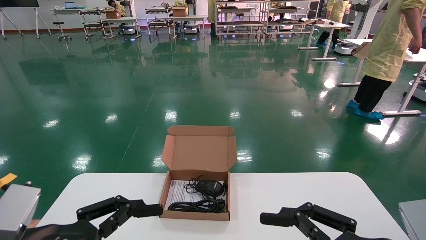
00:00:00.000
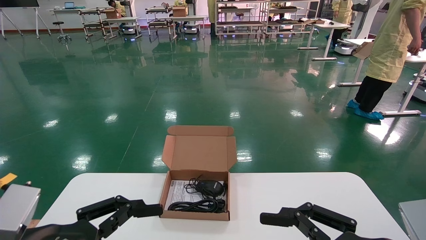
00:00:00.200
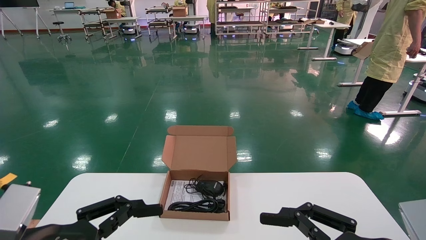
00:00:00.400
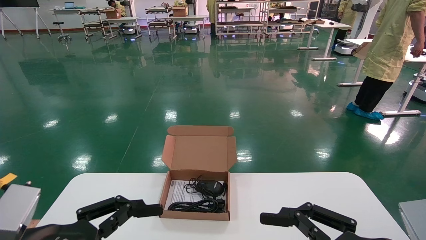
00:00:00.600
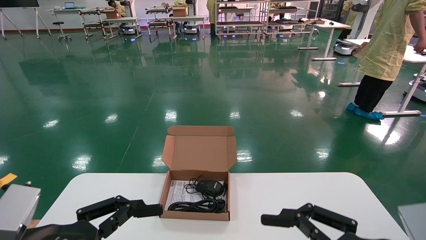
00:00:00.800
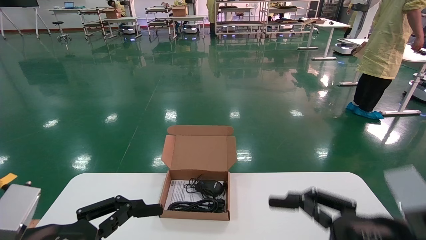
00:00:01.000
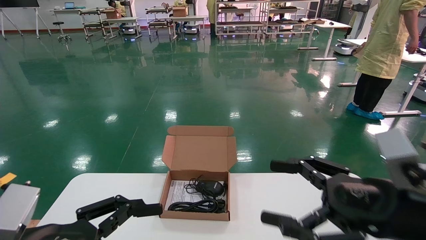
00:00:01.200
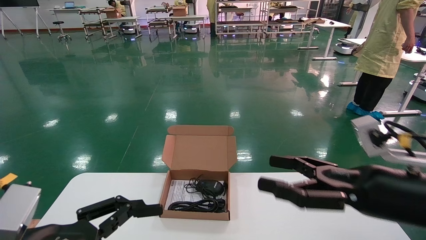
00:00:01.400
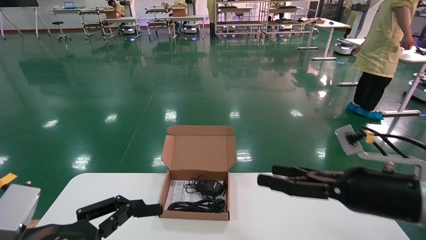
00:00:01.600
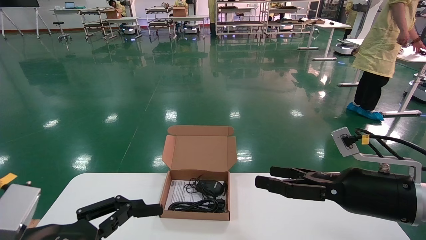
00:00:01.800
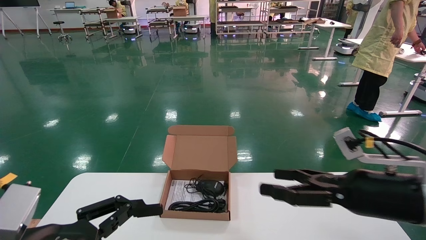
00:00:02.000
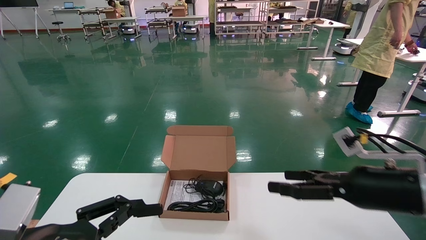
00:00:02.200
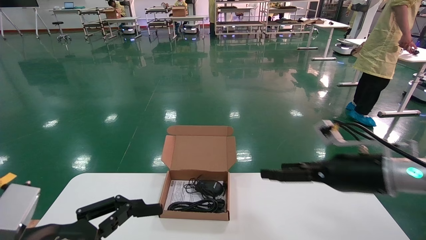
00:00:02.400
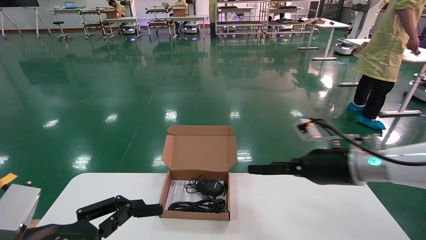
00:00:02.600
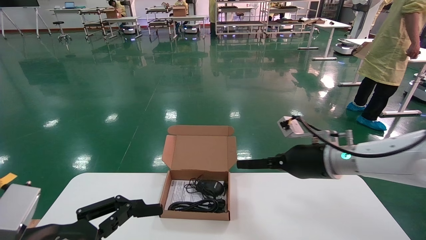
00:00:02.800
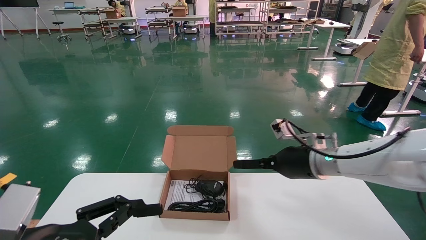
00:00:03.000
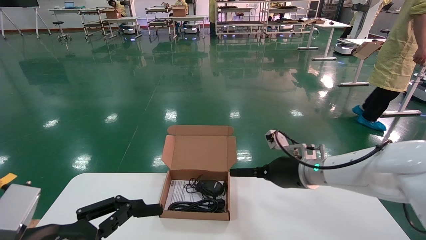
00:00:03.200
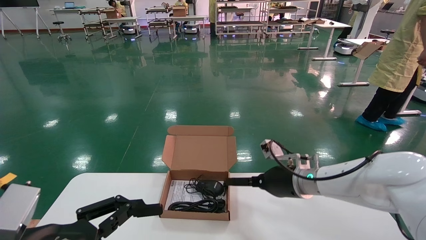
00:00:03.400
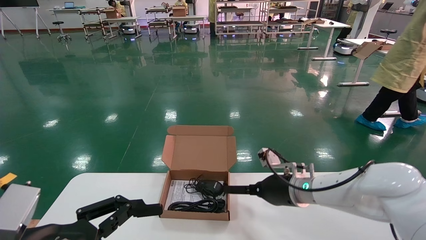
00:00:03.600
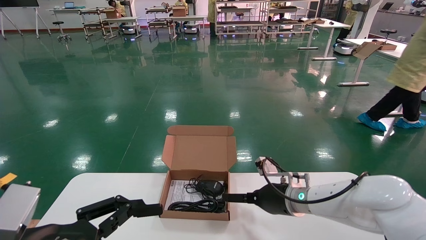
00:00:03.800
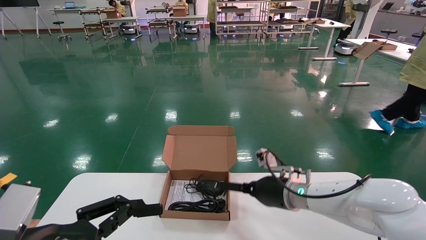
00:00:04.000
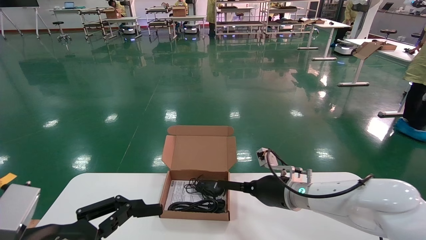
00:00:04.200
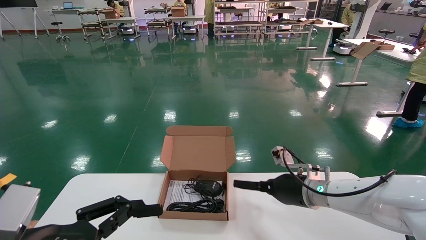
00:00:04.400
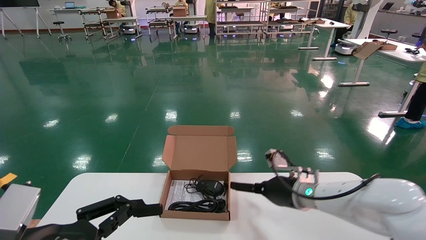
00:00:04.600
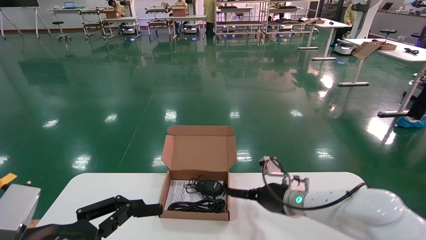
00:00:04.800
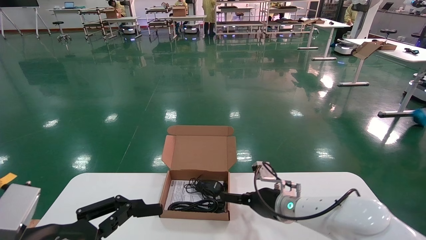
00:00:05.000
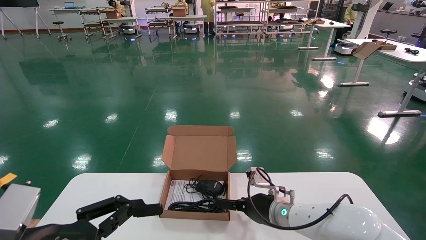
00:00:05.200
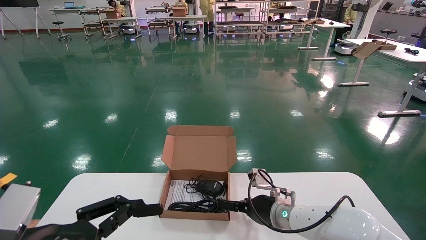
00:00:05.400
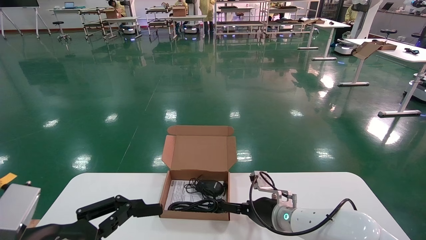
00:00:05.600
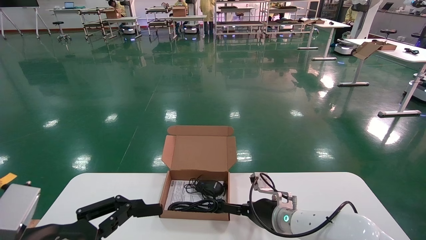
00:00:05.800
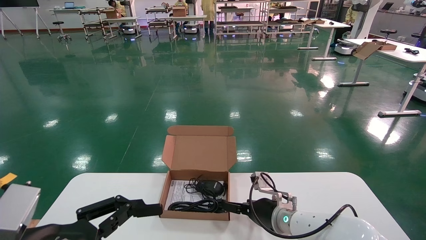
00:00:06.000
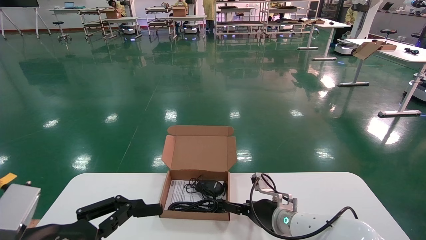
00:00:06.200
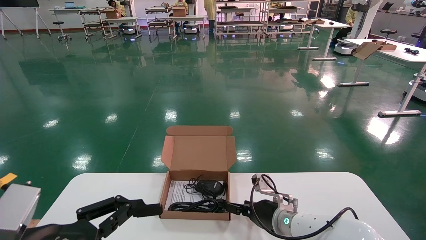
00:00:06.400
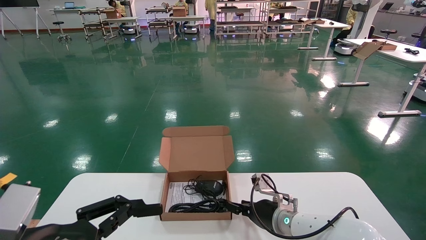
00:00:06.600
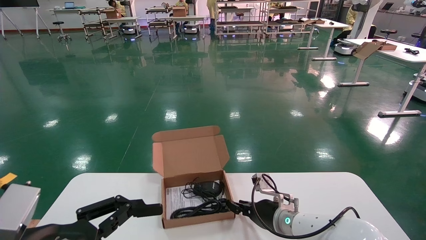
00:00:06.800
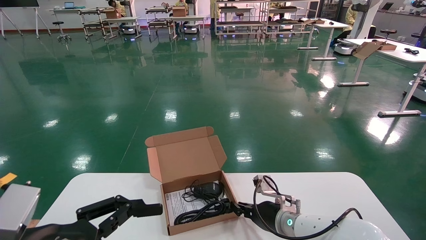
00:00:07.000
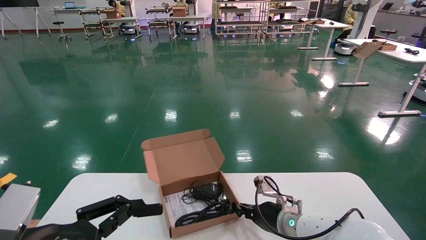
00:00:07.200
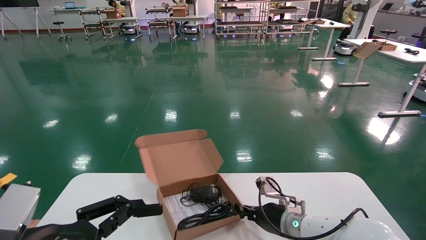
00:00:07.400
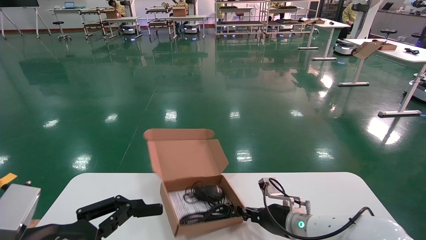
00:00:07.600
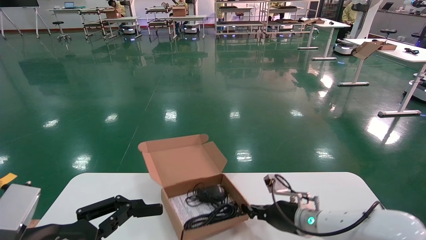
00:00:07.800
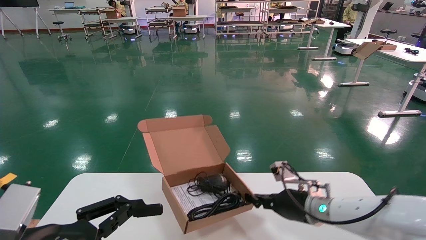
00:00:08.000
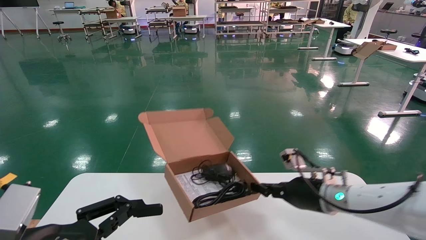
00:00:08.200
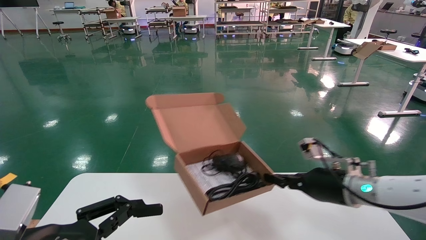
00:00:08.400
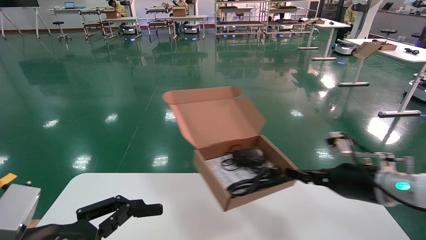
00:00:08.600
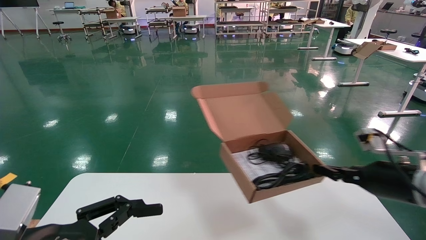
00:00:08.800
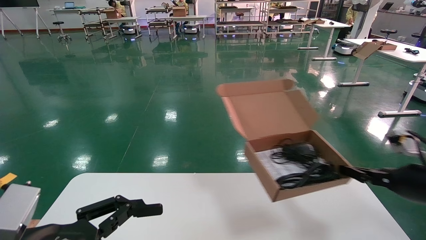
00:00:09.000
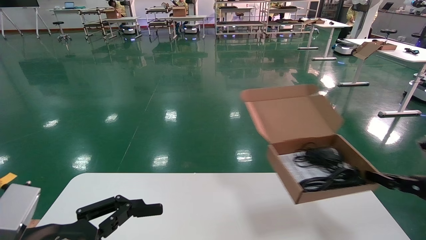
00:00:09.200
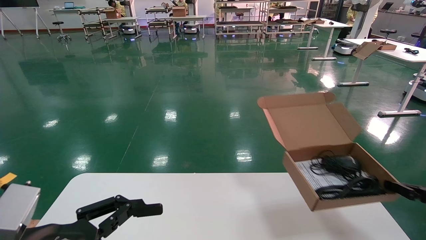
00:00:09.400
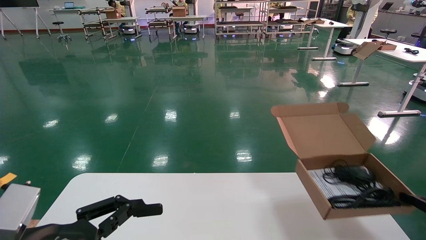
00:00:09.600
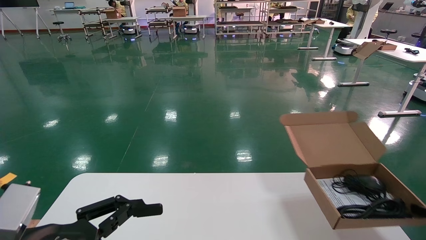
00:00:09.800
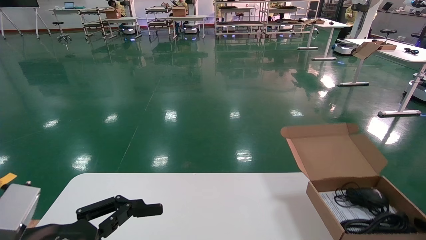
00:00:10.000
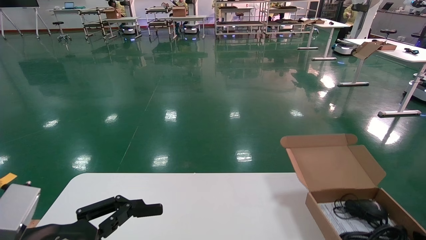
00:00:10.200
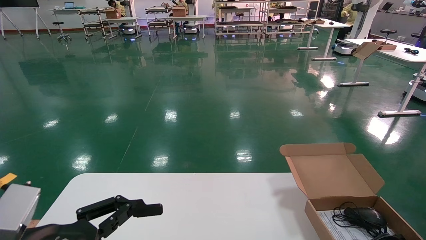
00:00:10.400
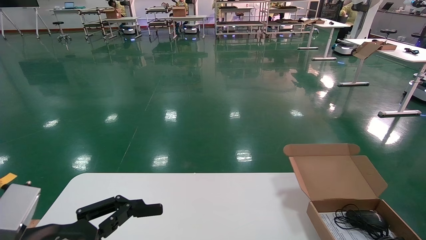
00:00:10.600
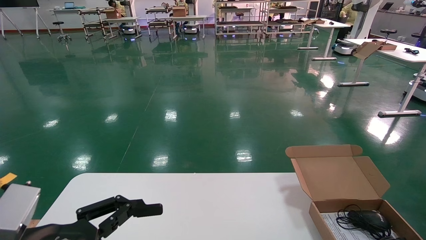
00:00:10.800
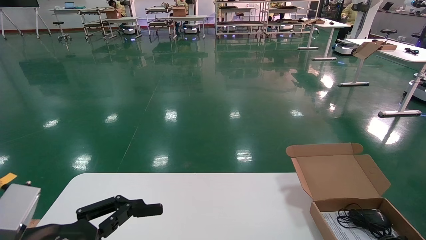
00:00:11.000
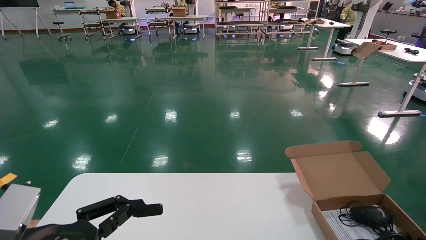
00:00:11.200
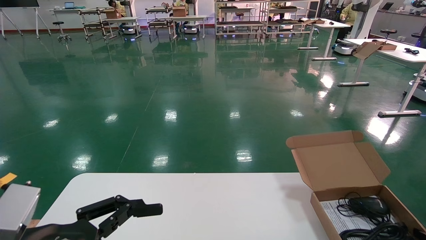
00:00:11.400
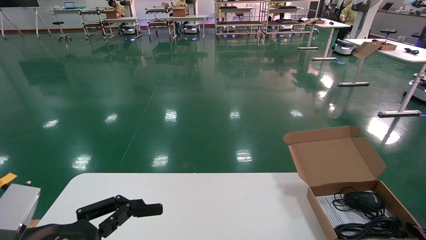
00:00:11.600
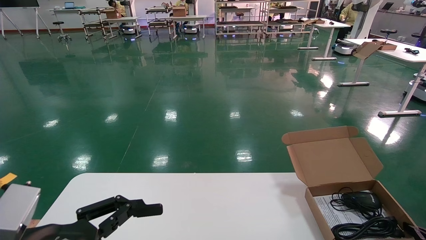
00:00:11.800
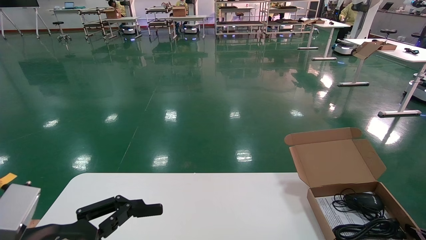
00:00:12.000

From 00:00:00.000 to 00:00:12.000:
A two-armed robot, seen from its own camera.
Task of the whole recording: move the position of the storage box with accessories on the table.
Step, from 00:00:01.000 to 00:00:07.400: Grab and pick up the open mouse box from the accessory packaging area.
From 00:00:00.000 to 00:00:01.600: The right gripper goes about 10 cm forward.
From 00:00:01.600 to 00:00:03.000: The right gripper shifts roughly 15 cm forward and to the left.
From 00:00:03.000 to 00:00:04.400: The right gripper heads downward, covering approximately 10 cm.
From 00:00:04.400 to 00:00:06.000: The right gripper goes about 5 cm downward.
From 00:00:06.000 to 00:00:07.600: The right gripper closes.
From 00:00:07.600 to 00:00:09.000: The right gripper shifts some 30 cm to the right, upward and backward.
From 00:00:09.000 to 00:00:10.400: The right gripper heads downward and to the right, covering about 20 cm.
From 00:00:10.400 to 00:00:12.000: There are only small adjustments of the grippers.

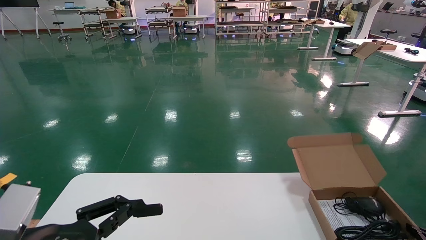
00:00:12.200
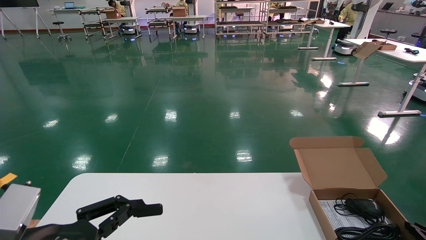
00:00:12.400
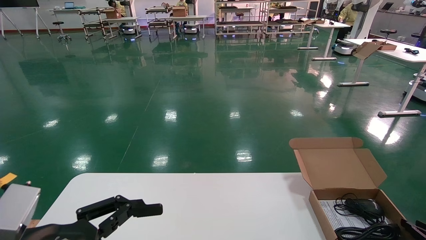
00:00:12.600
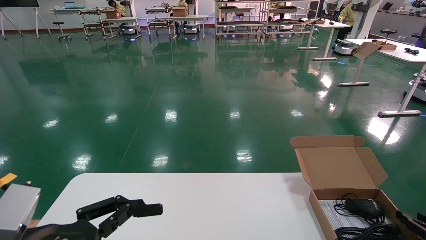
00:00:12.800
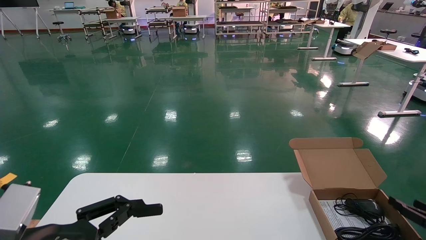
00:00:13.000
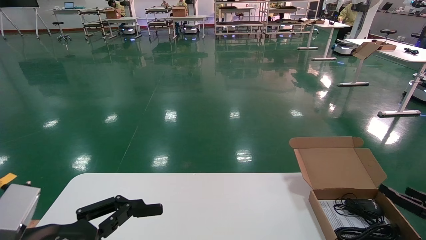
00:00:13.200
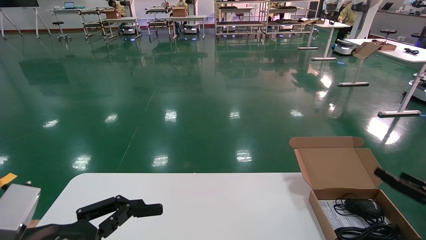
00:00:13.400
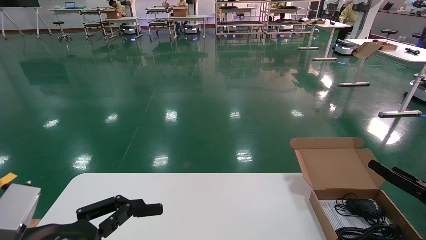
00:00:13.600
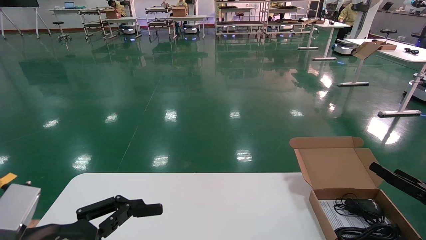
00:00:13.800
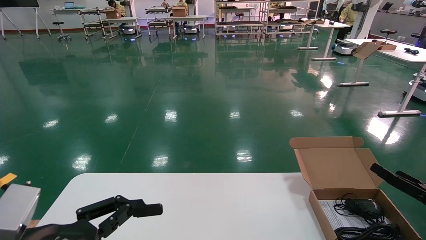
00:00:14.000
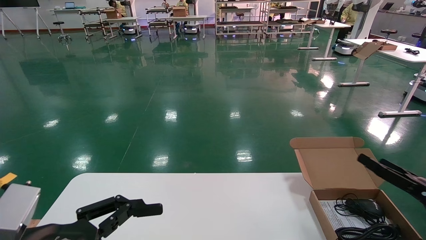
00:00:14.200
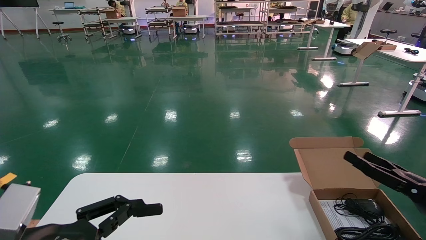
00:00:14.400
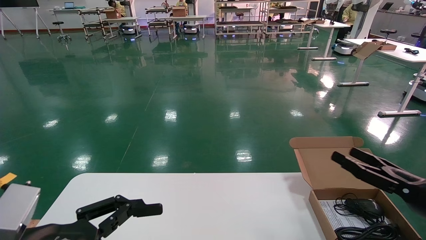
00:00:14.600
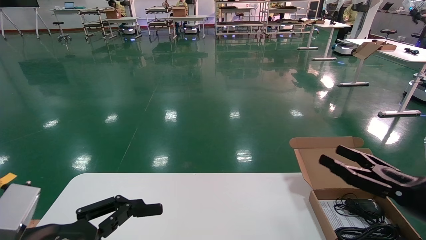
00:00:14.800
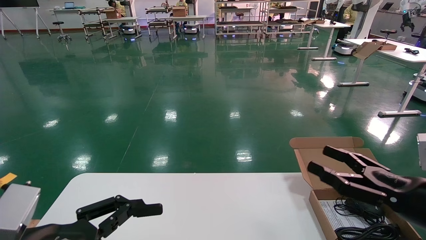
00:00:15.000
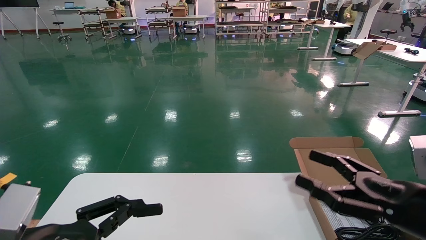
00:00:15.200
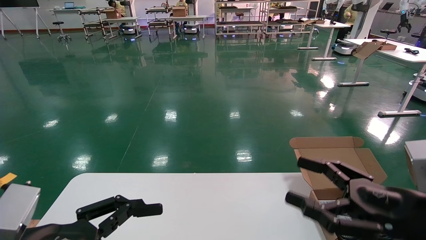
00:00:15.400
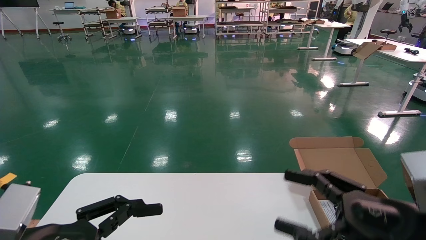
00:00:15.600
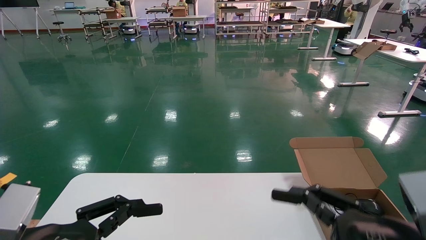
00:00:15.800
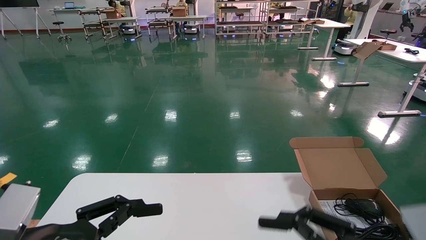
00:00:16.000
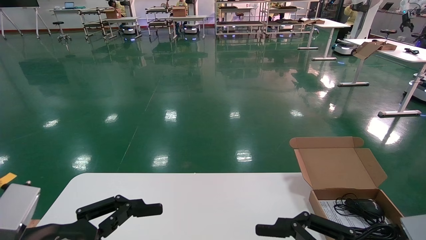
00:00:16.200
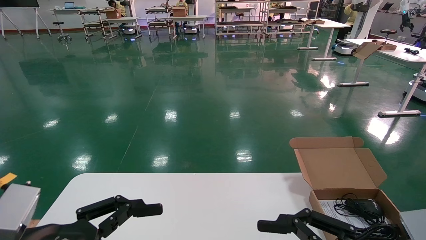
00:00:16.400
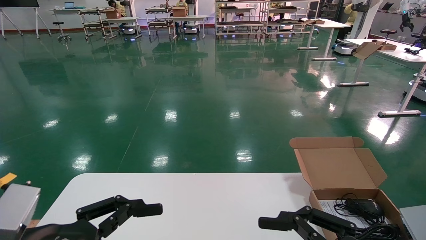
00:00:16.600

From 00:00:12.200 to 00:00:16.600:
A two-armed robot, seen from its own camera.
Task of the whole recording: move the position of the storage box with accessories on the table.
From 00:00:12.200 to 00:00:13.600: The right gripper goes some 10 cm upward and to the left, and opens its fingers.
From 00:00:13.600 to 00:00:15.200: The right gripper shifts approximately 20 cm to the left, backward and upward.
From 00:00:15.200 to 00:00:16.600: The right gripper is displaced backward and to the left by roughly 10 cm.
